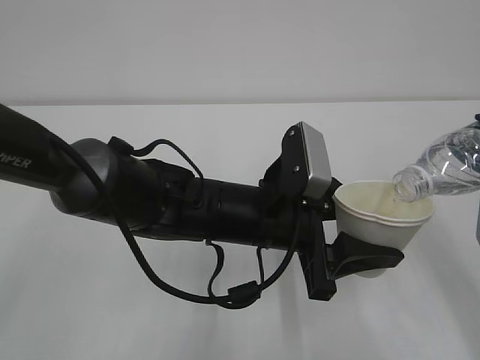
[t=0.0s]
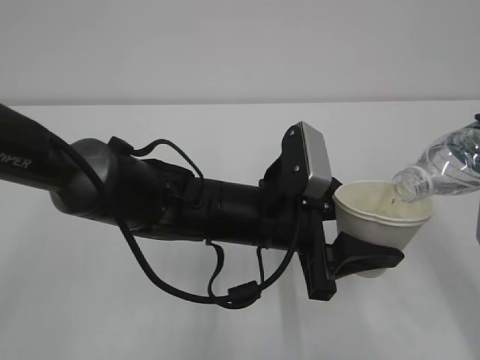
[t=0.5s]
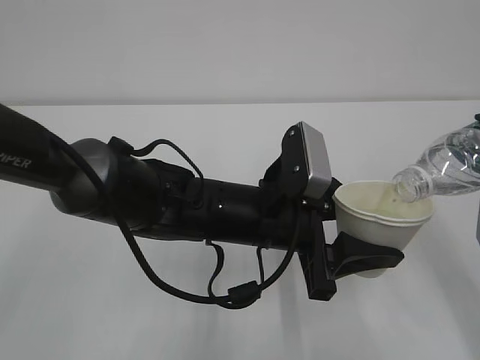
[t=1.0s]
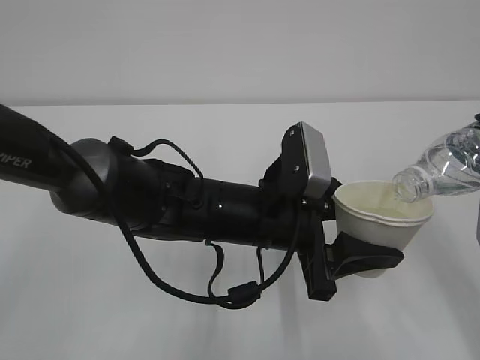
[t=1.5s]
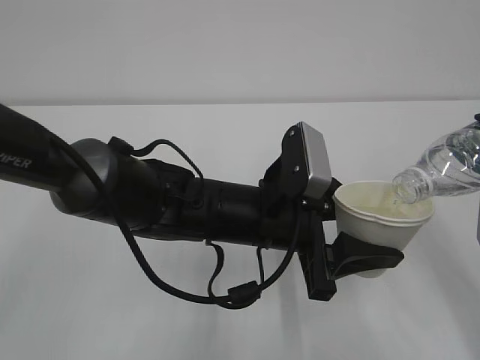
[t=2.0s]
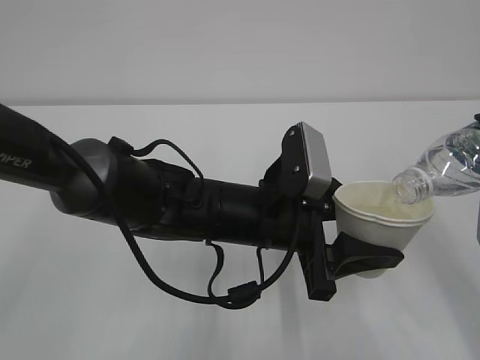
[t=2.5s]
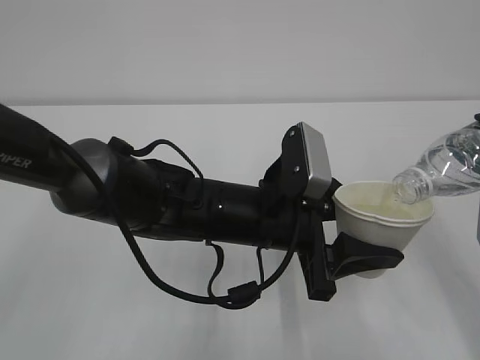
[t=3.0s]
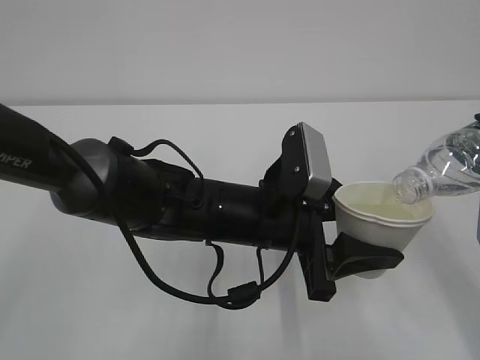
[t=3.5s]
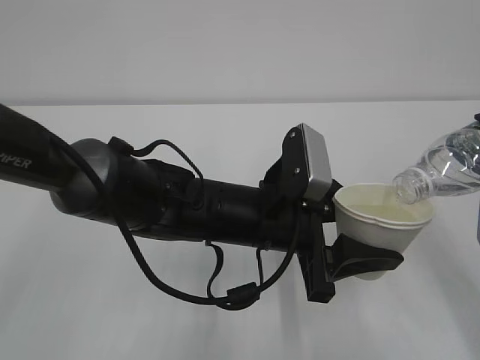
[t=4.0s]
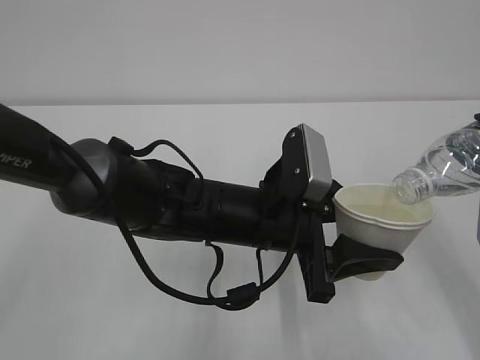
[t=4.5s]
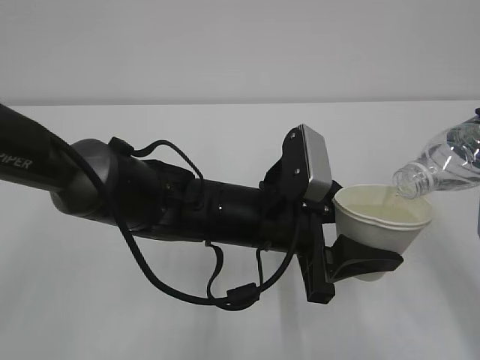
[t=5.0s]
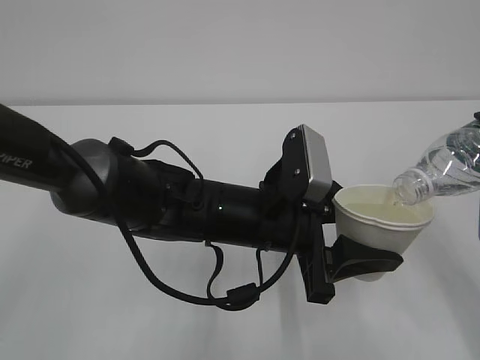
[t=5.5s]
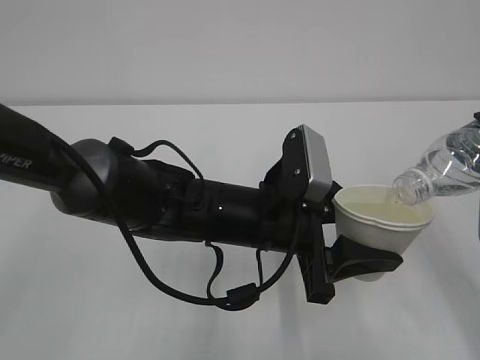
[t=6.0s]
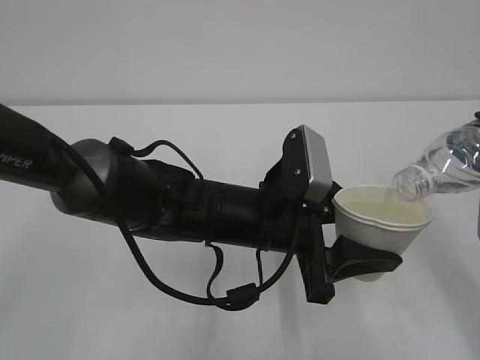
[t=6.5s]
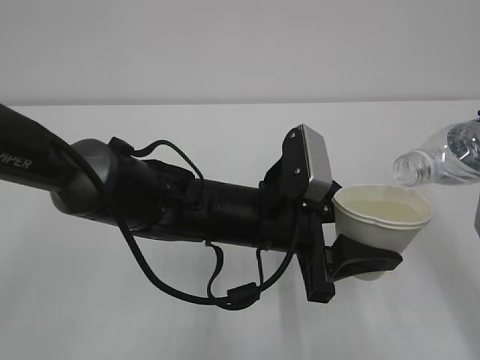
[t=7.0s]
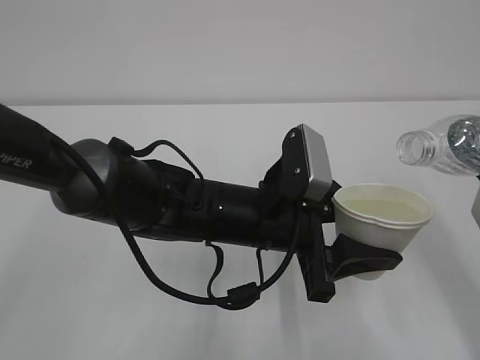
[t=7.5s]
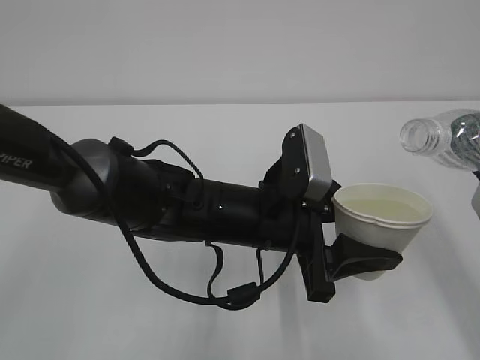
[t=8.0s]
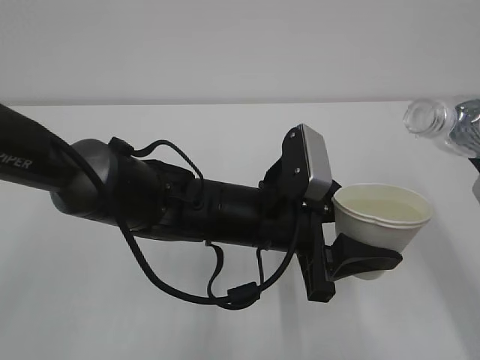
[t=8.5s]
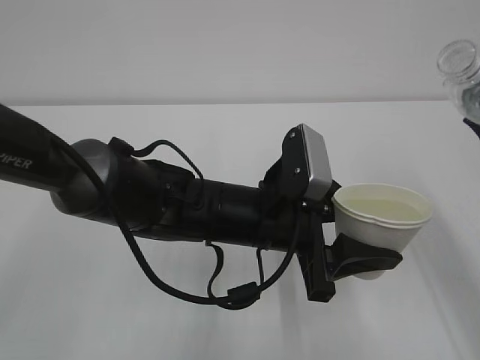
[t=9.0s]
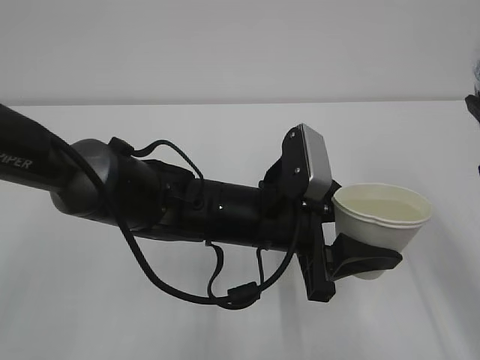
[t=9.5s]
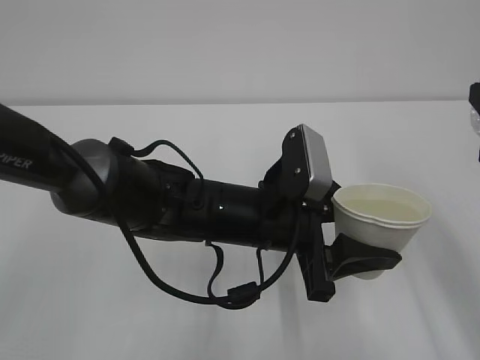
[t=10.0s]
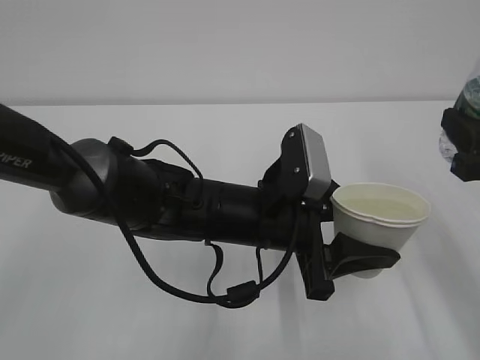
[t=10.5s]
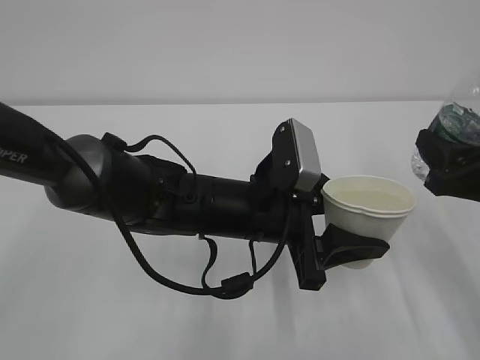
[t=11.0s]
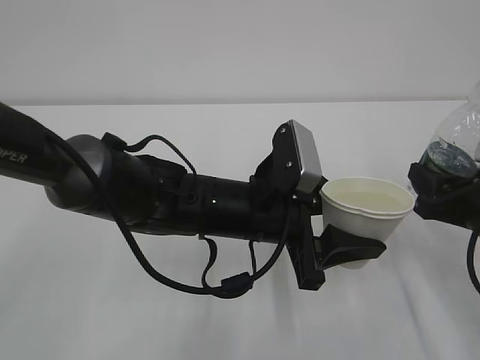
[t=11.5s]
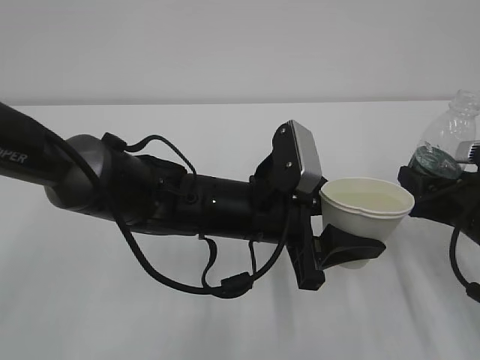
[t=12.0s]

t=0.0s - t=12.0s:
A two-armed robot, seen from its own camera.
t=0.0s - t=6.0s: The two grippers keep their place.
t=10.0s - t=12.0s: The right gripper goes about 15 cm downward and forward.

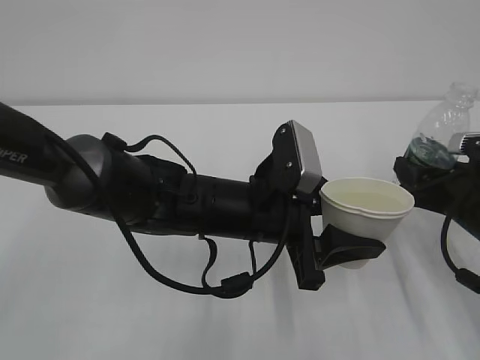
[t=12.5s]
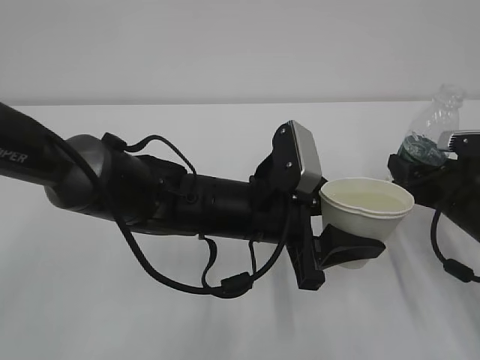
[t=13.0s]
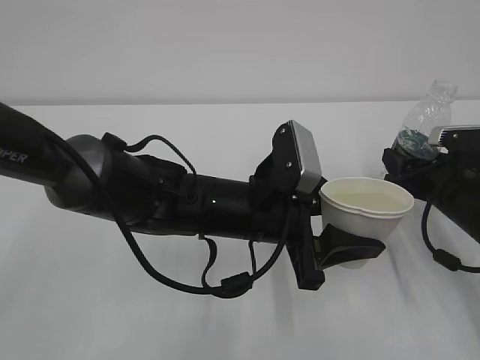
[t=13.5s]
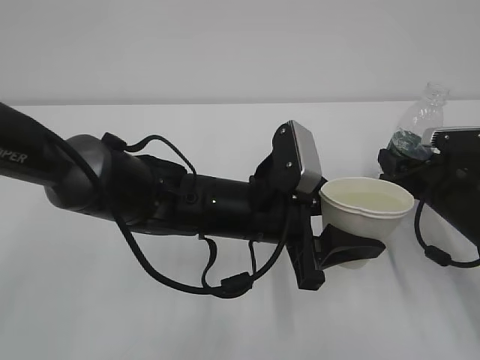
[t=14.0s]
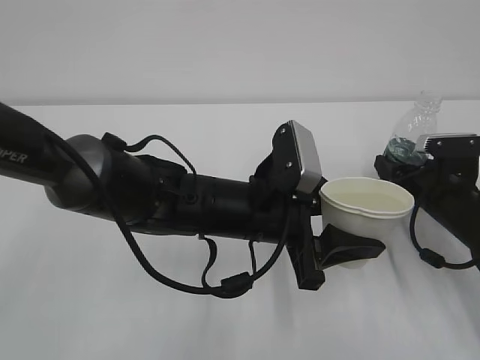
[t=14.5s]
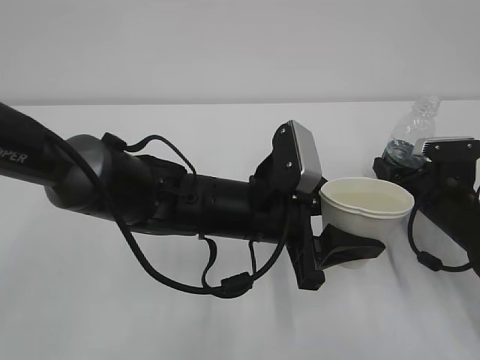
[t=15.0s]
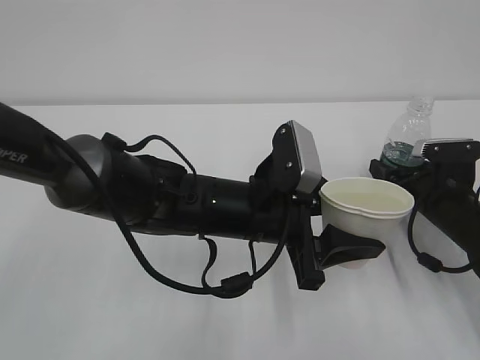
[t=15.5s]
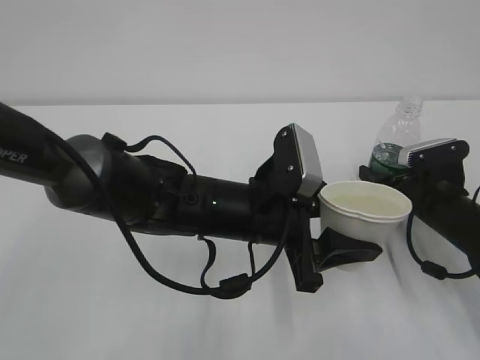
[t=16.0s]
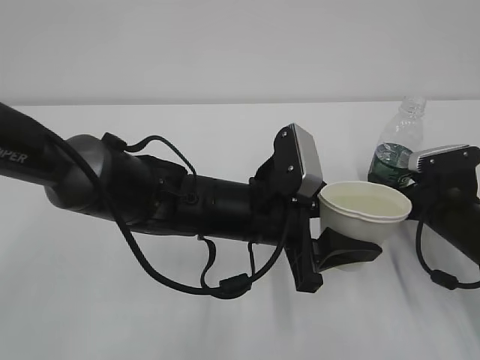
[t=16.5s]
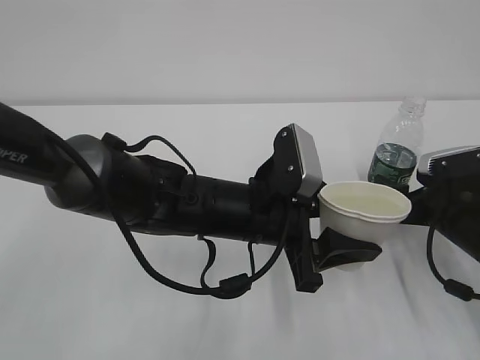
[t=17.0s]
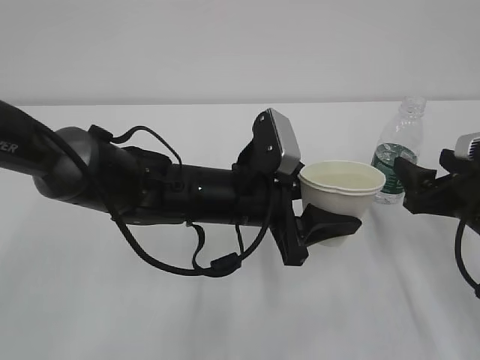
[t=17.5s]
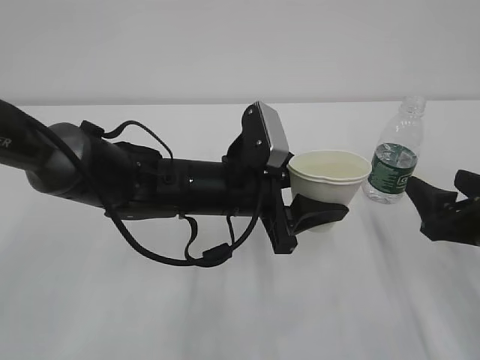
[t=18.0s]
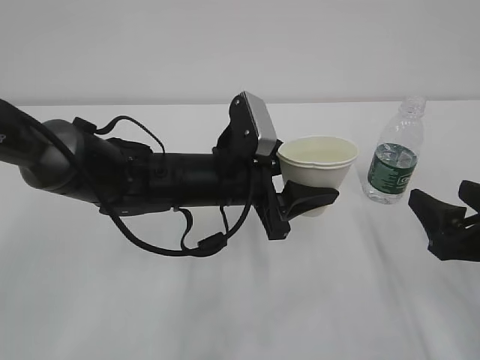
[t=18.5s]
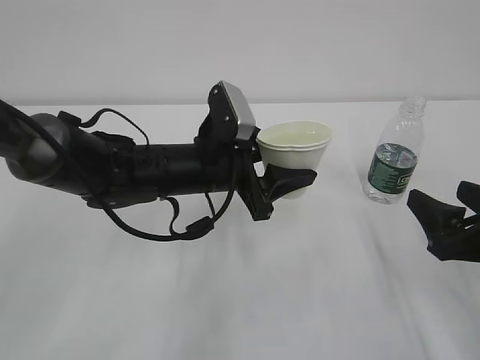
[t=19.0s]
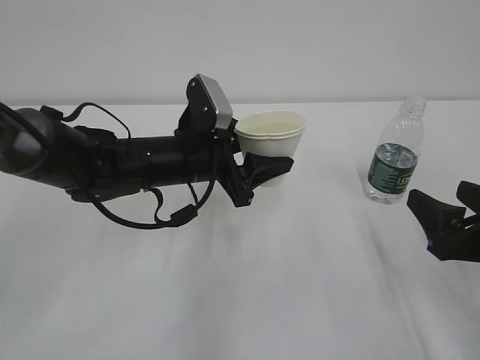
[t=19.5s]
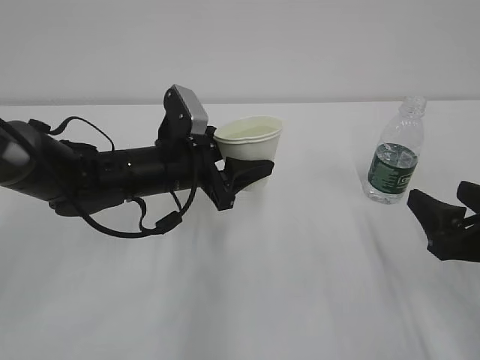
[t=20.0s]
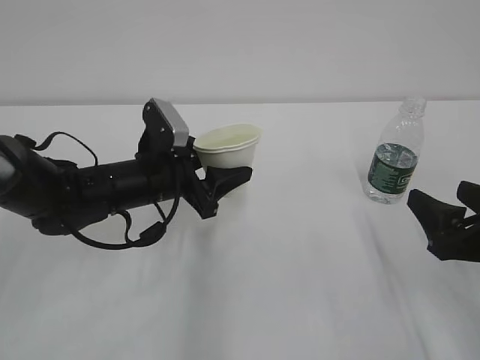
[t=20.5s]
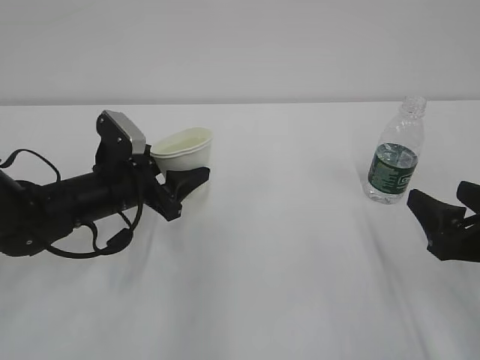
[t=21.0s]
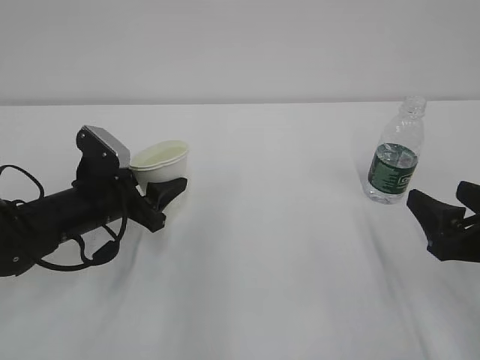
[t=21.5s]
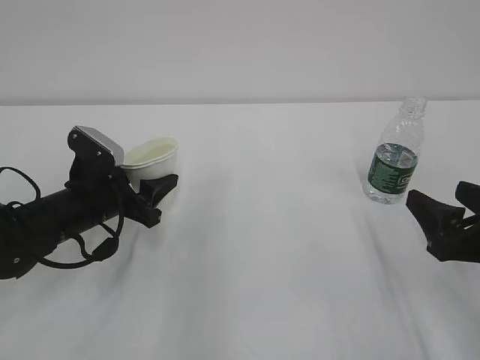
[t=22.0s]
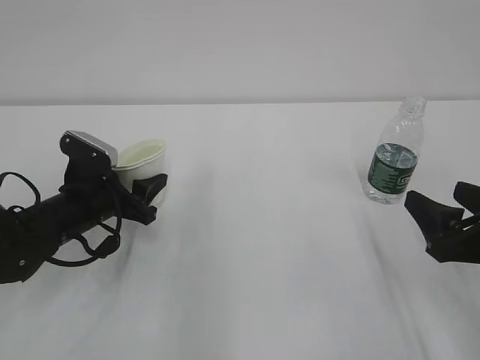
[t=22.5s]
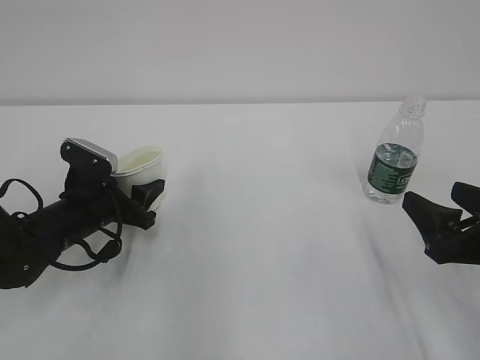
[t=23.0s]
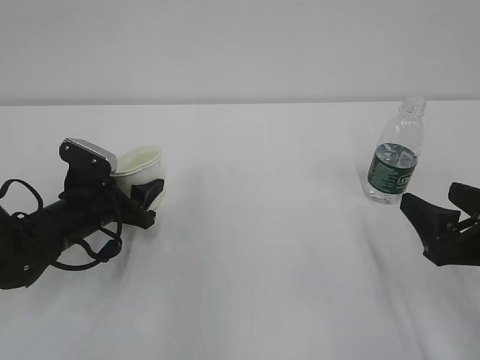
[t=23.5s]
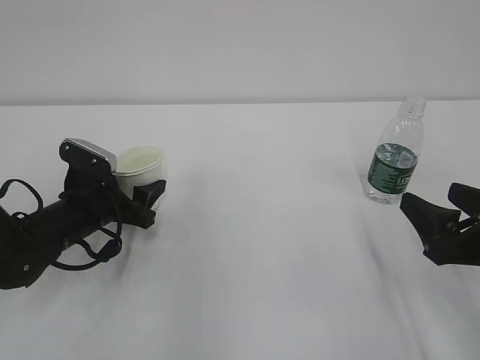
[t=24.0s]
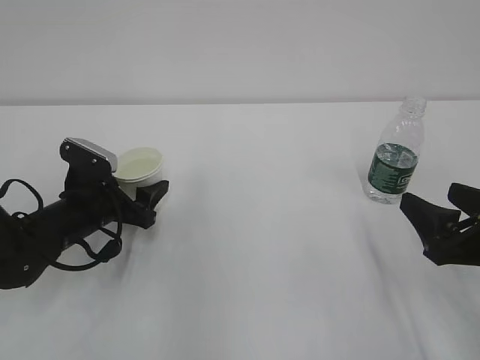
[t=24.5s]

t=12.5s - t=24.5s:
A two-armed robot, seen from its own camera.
t=12.5s - t=14.5s: The right gripper moves forward, some 5 cm.
t=14.5s - t=16.5s: The right gripper opens its fingers.
t=16.5s - t=18.5s: The right gripper moves backward and upward, approximately 15 cm. Meanwhile the left gripper moves approximately 5 cm.
t=18.5s - t=20.5s: The left gripper goes about 10 cm to the left.
t=20.5s - t=22.5s: The left gripper moves to the left, some 10 cm.
t=22.5s - t=24.5s: The left gripper opens its fingers.

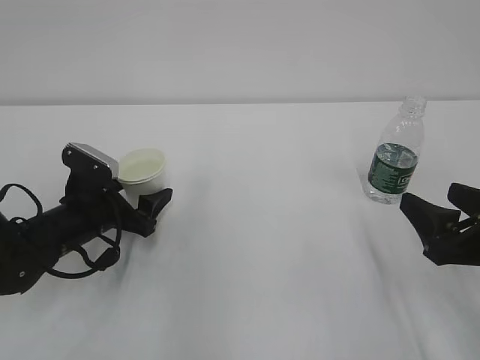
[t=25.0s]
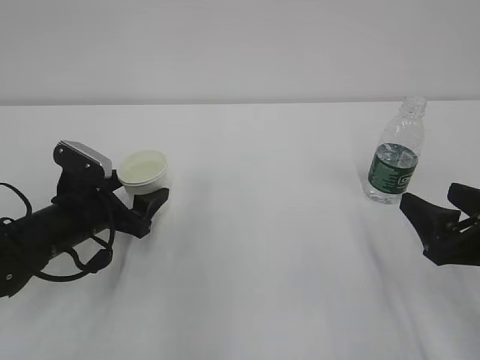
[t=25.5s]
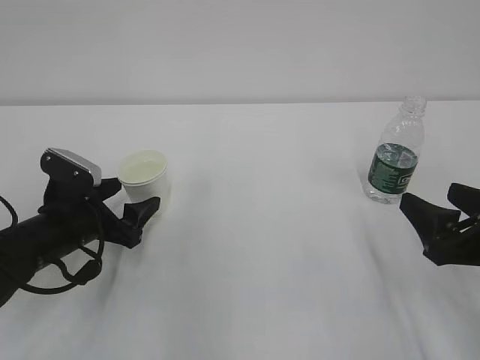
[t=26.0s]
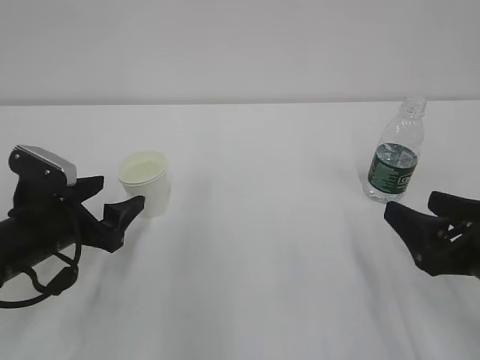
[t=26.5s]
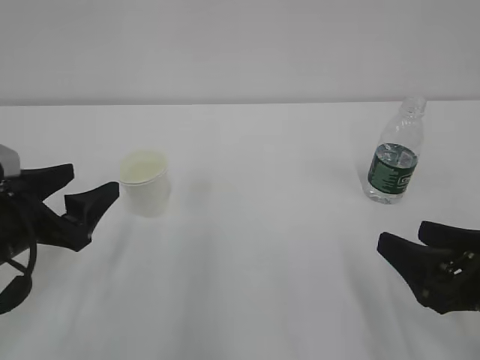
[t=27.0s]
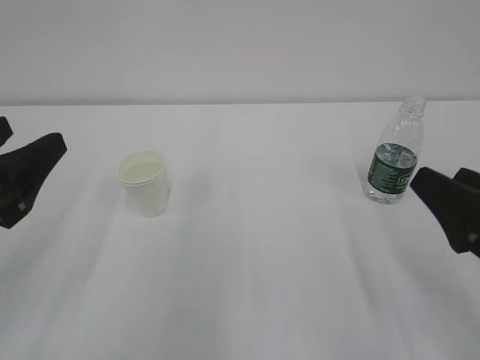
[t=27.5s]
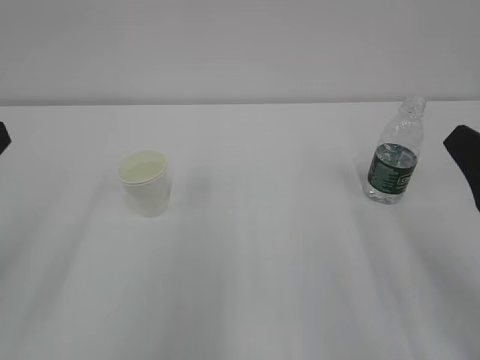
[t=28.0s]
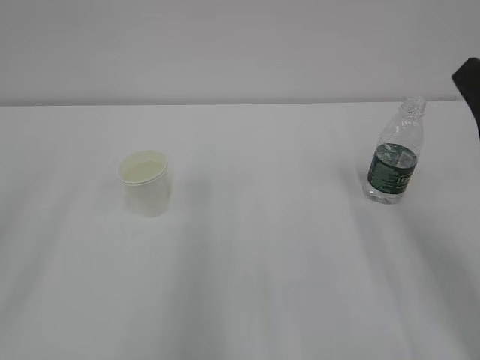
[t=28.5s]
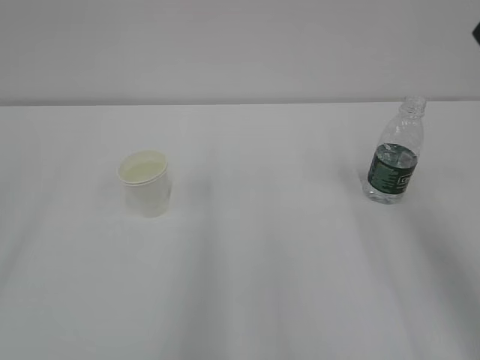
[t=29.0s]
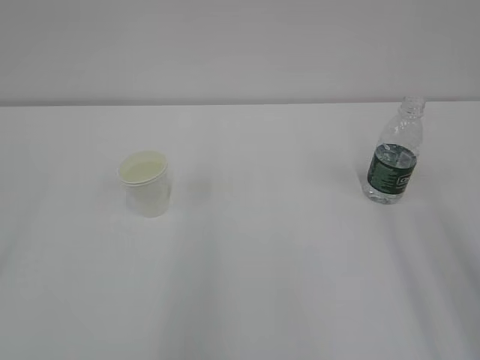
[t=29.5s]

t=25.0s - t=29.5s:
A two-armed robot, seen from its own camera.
t=25.0s - t=27.0s: The left gripper heads backward and upward, covering roughly 15 cm.
t=27.0s - t=29.5s: The left gripper heads upward and backward, covering approximately 30 cm, while the right gripper is displaced upward by some 20 cm.
